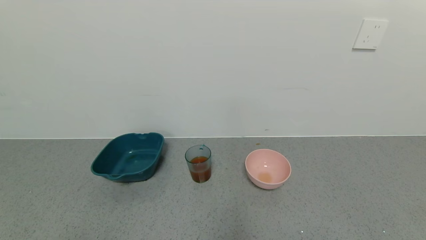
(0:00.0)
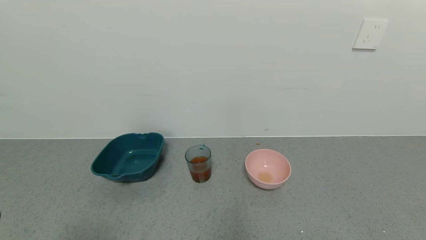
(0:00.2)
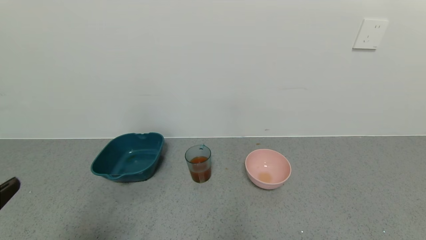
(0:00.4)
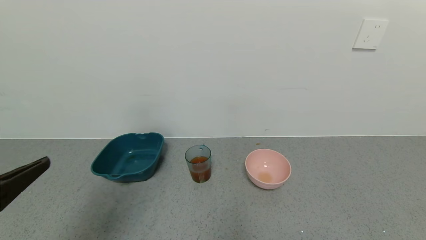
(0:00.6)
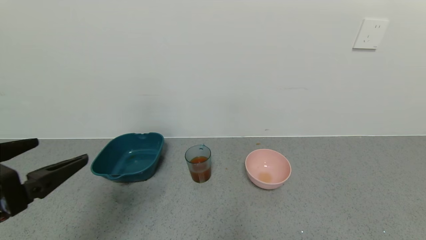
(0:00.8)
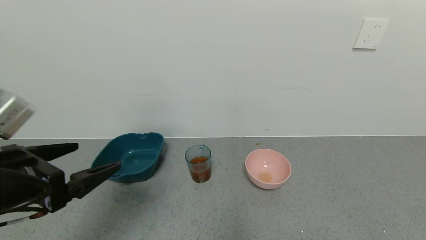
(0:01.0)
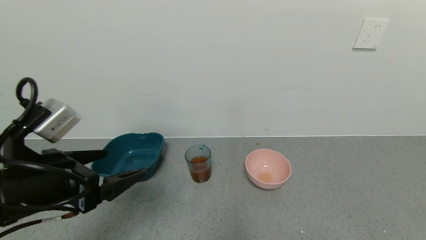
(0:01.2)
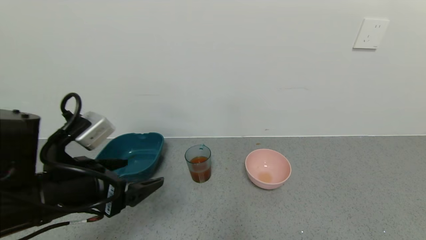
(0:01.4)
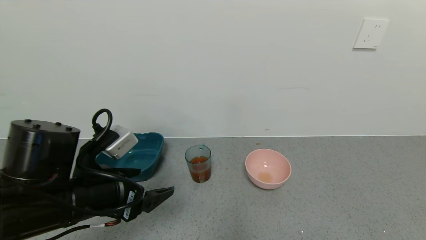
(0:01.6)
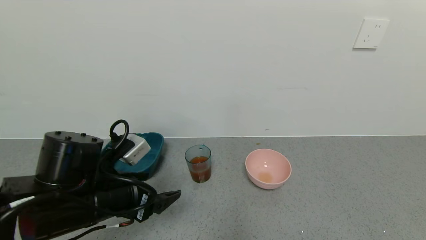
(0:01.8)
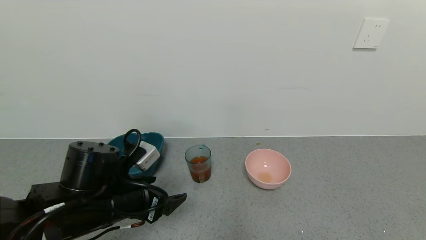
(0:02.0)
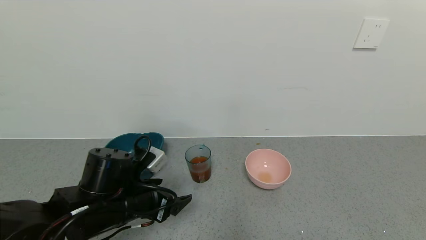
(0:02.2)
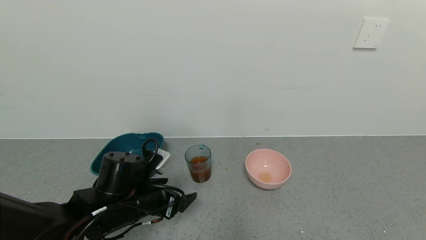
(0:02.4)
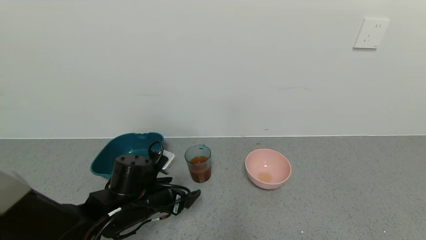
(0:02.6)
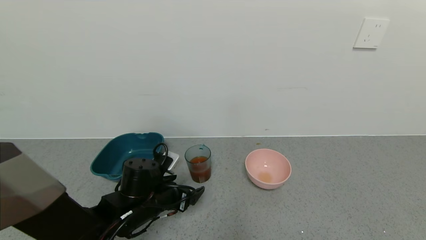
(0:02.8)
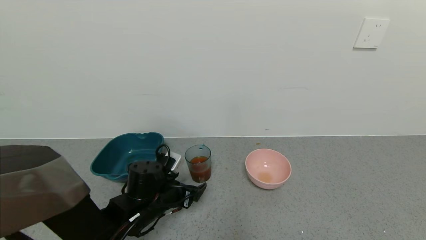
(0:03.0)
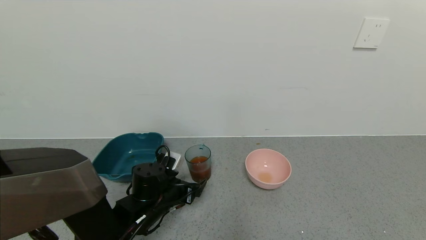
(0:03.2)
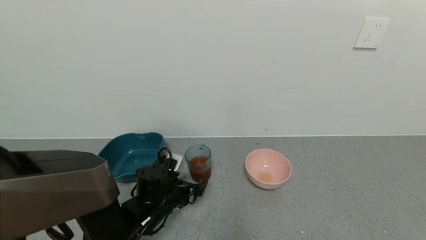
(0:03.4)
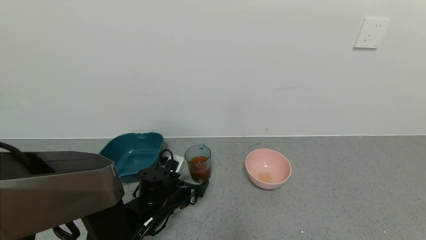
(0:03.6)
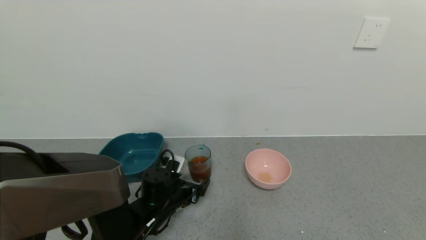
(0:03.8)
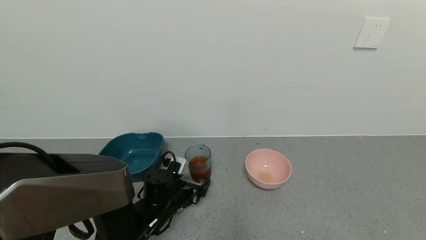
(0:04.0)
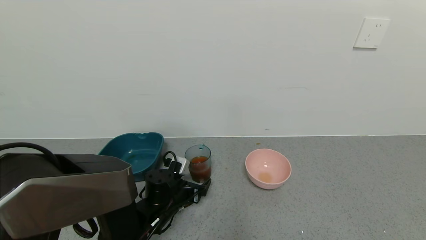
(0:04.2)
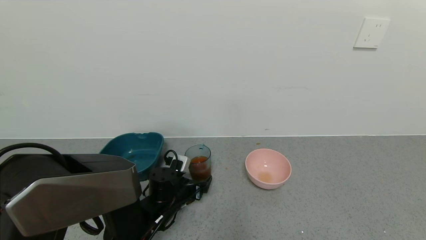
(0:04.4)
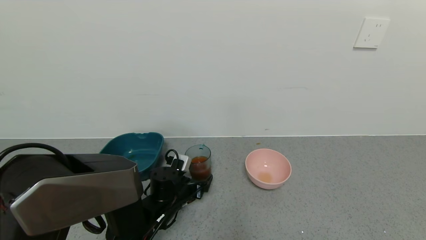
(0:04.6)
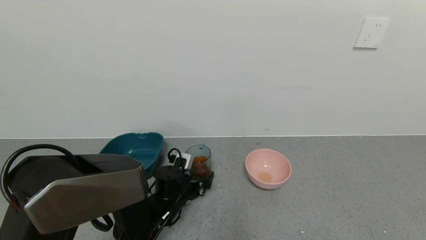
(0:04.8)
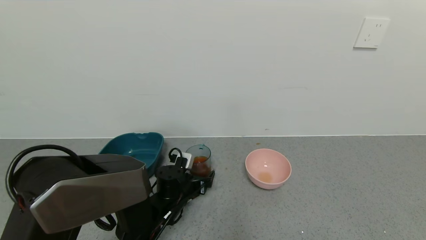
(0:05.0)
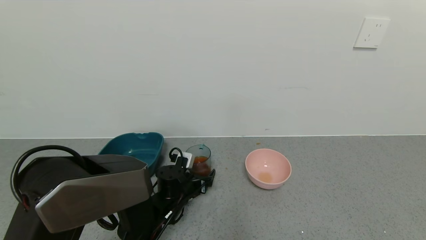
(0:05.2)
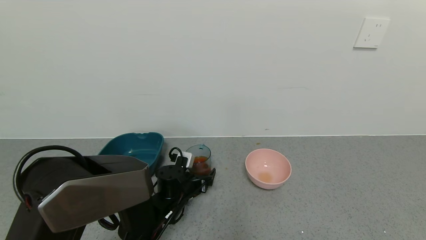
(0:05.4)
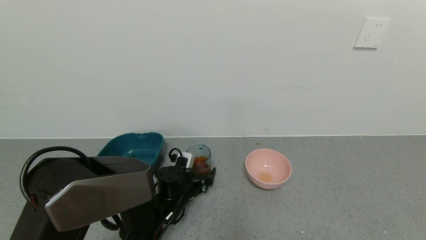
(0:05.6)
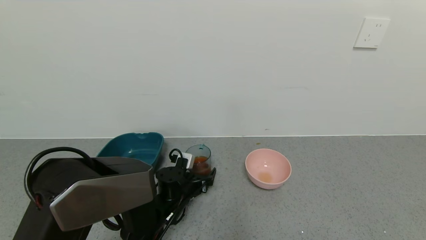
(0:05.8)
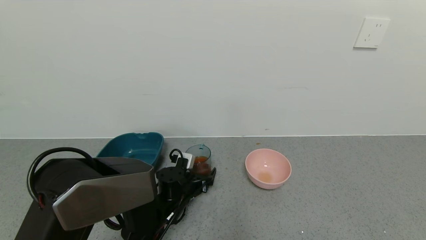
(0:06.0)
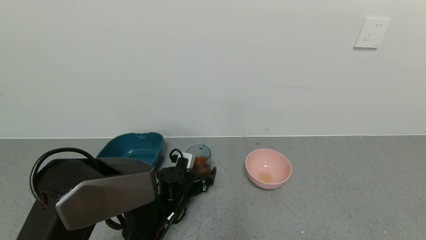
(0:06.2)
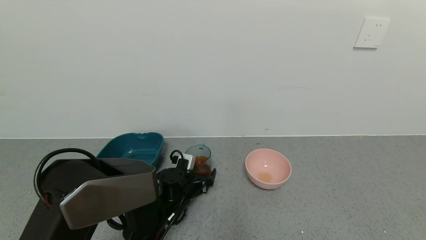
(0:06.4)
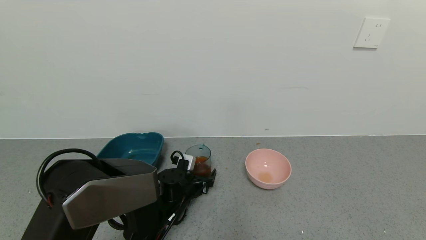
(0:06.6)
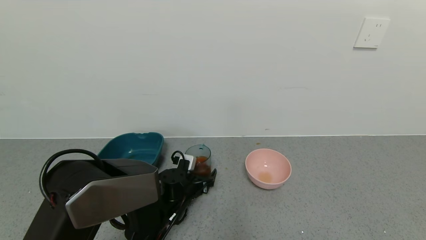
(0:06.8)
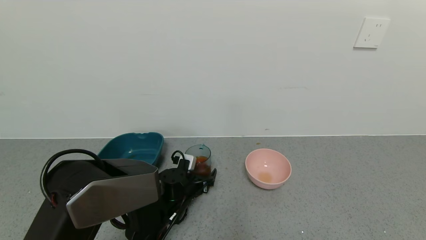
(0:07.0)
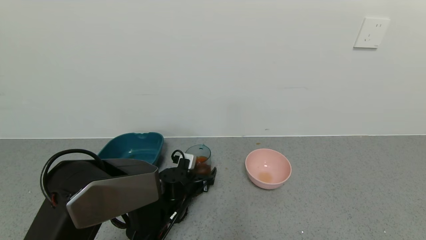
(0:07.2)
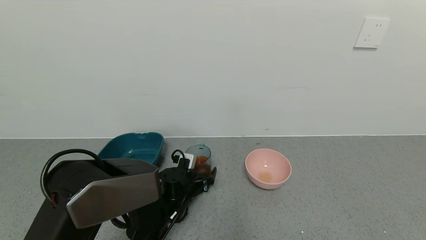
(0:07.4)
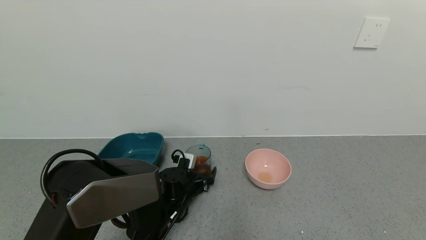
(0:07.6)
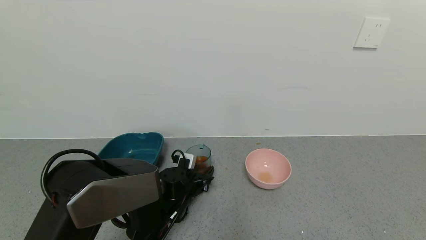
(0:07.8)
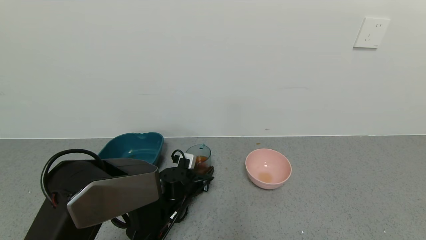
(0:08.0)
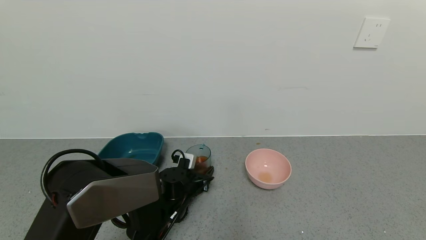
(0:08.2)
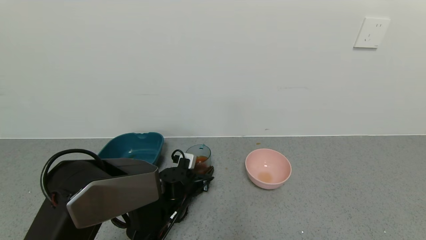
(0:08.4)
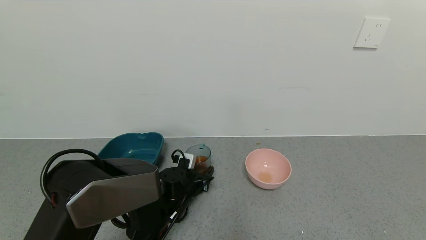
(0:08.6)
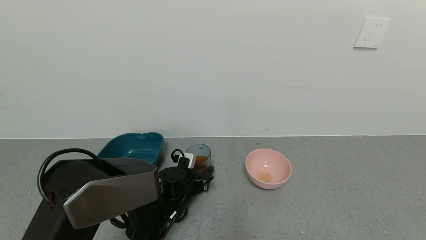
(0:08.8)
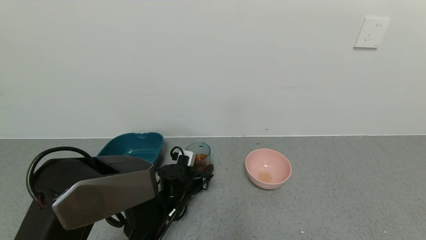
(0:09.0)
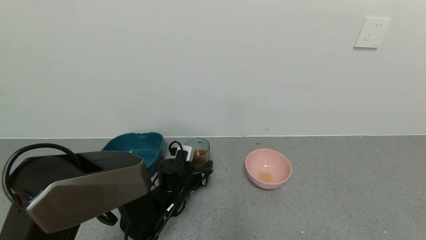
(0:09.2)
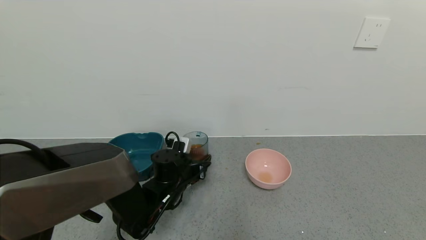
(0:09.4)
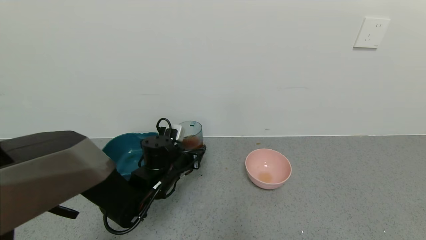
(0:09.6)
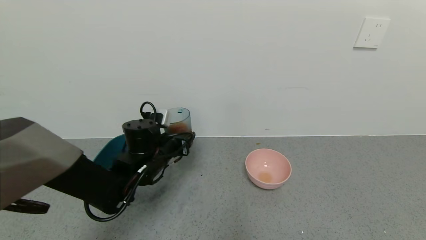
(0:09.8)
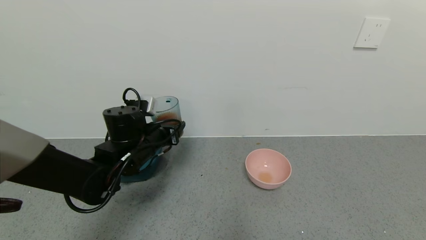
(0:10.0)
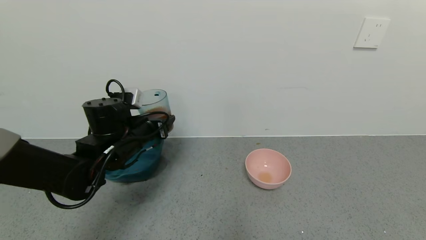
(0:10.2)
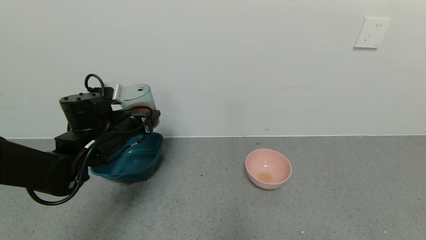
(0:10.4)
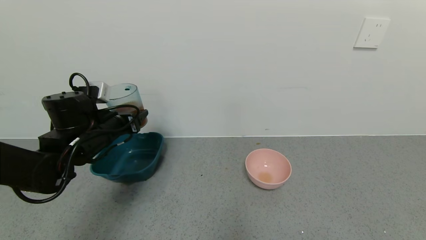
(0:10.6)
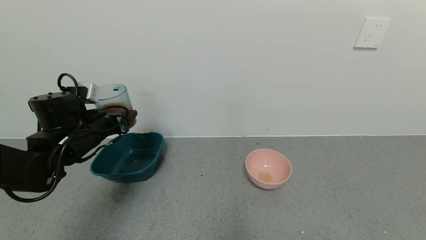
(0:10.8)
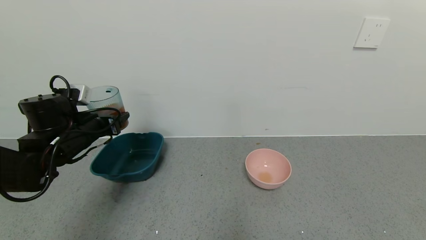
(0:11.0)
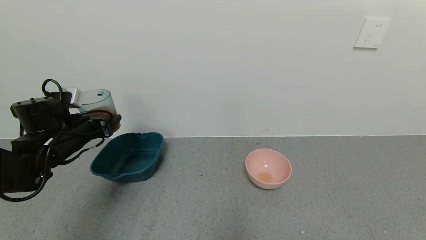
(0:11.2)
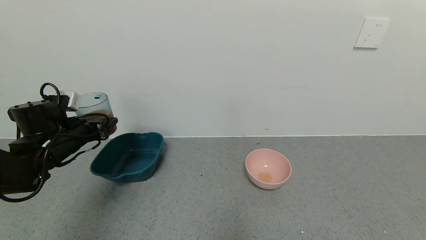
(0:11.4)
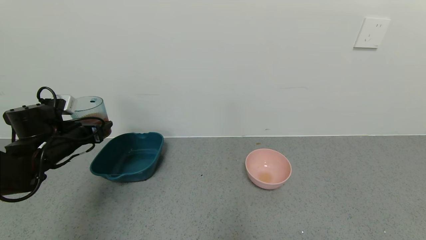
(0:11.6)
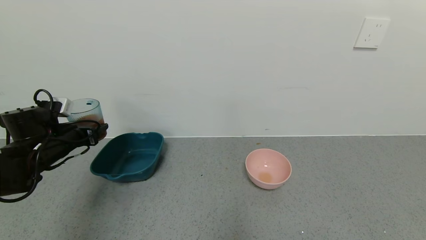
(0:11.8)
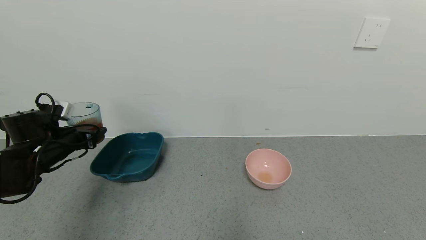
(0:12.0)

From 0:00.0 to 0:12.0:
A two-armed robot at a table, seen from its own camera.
Task of the whole recording: use a gripper to pick up the cup and pour the liquid into a bowl or tray.
Step, from 0:00.0 to 0:08.4: Grasp the glass of black tea with the left gripper.
From 0:00.0 to 0:01.6: The left gripper moves forward and to the right, approximately 20 cm.
From 0:01.6 to 0:03.0: The left gripper shifts some 15 cm downward and forward.
From 0:03.0 to 0:04.4: The left gripper moves roughly 5 cm.
From 0:04.4 to 0:06.0: There are only small adjustments of the grippers.
From 0:06.0 to 0:07.6: The left gripper closes up.
From 0:07.6 to 0:09.0: The left gripper closes.
From 0:09.0 to 0:10.4: The left gripper shifts approximately 20 cm upward and to the left.
From 0:10.4 to 0:12.0: The left gripper moves to the left, roughly 15 cm.

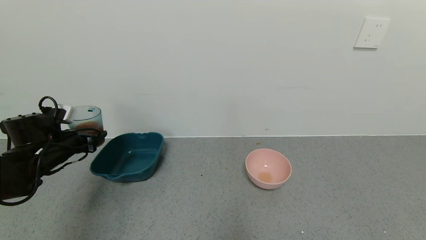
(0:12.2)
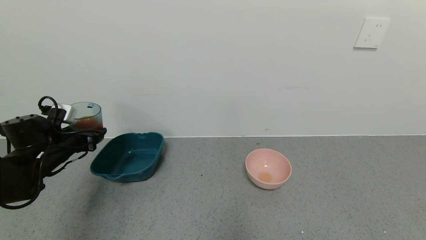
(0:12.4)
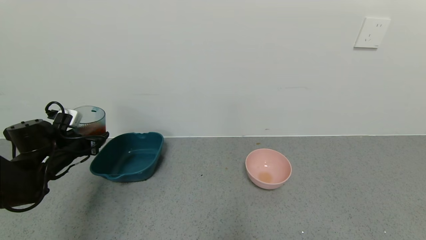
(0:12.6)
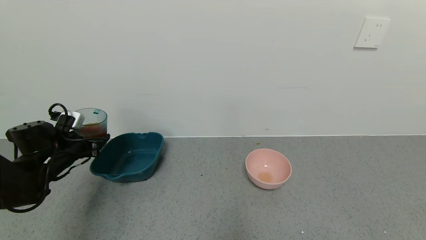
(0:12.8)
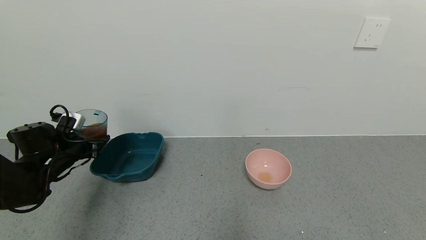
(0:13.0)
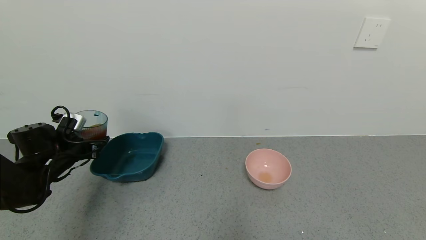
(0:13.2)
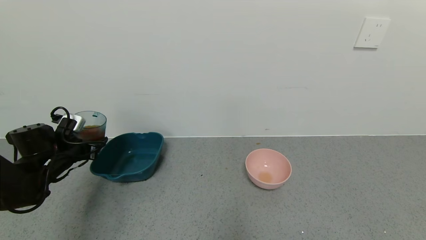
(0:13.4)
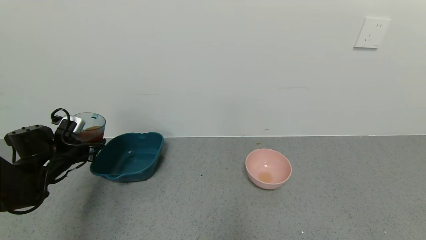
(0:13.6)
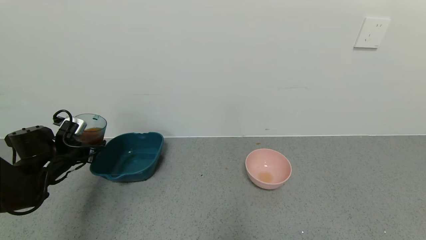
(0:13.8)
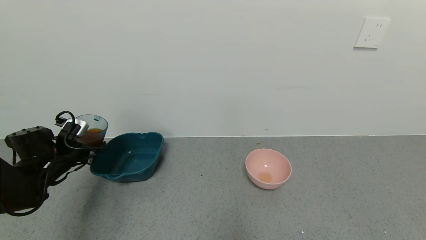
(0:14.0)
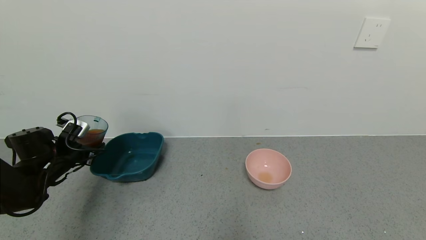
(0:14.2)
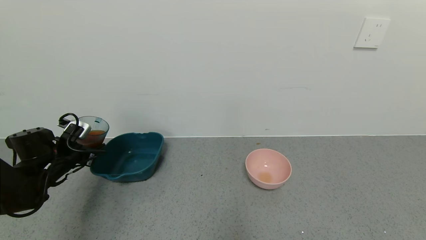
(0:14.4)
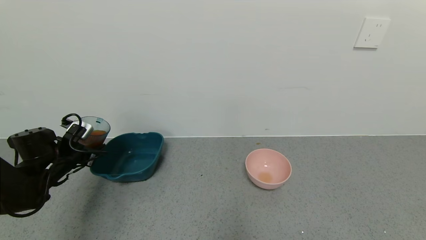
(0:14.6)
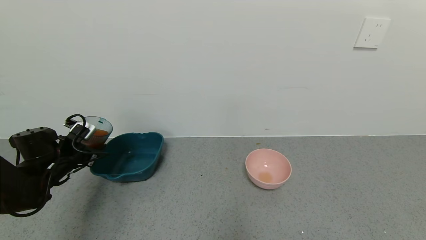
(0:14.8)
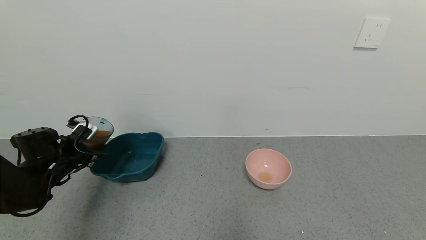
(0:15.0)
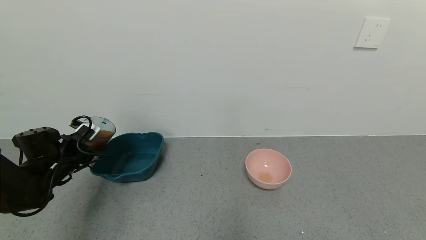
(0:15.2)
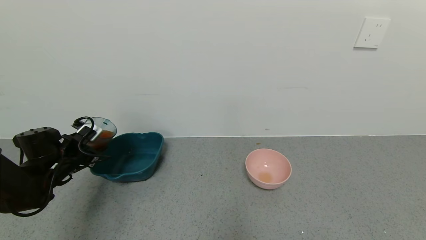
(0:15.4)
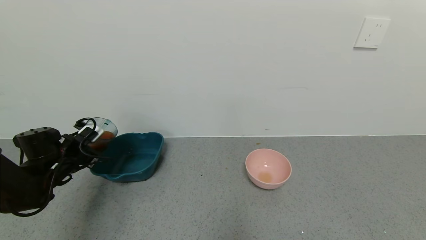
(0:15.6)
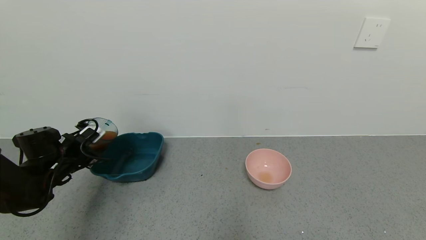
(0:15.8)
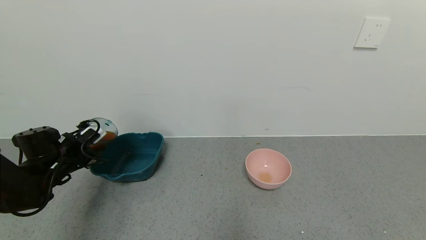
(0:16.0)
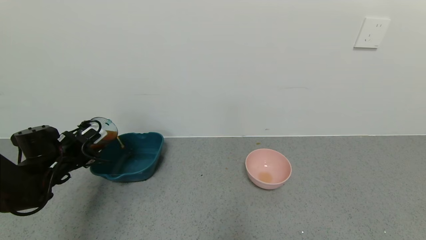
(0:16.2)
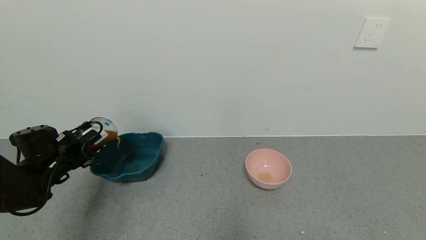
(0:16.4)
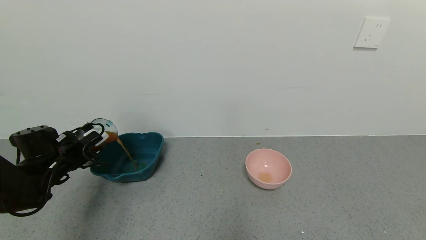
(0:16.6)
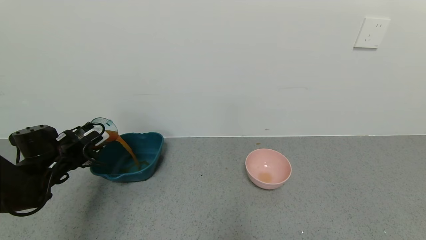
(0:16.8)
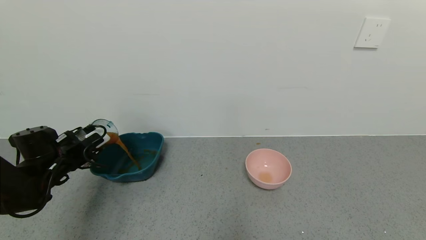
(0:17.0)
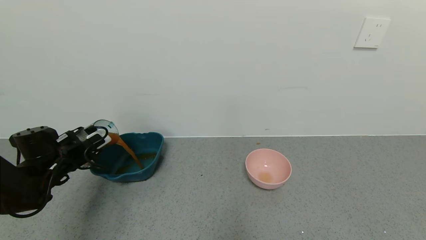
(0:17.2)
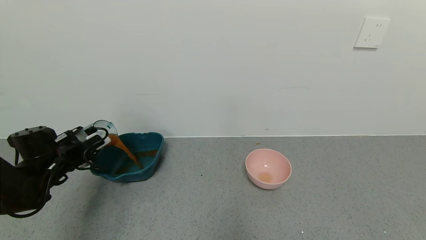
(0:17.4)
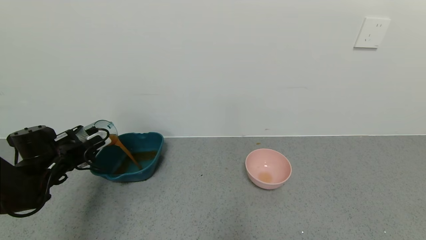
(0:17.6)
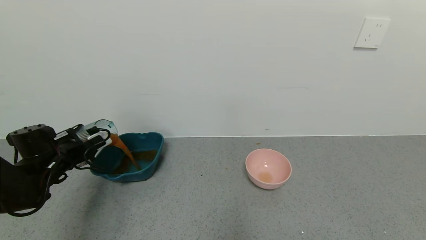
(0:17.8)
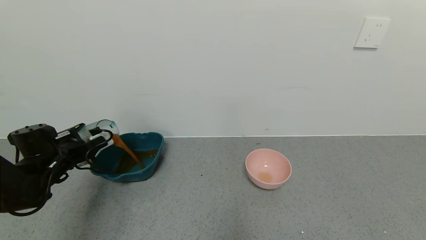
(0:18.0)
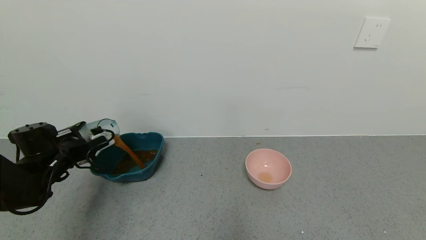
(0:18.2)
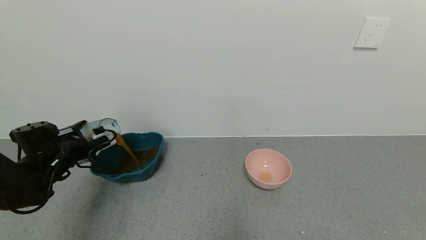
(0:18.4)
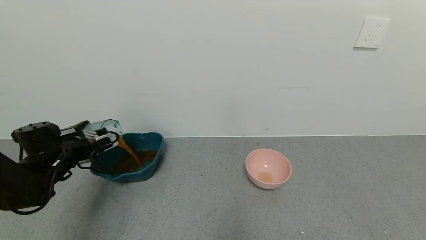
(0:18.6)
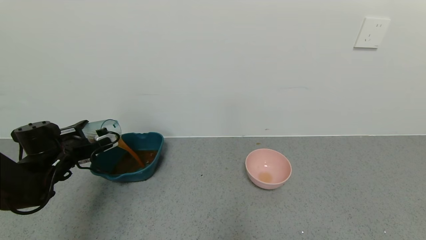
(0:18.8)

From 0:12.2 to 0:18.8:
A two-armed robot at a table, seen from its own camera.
Task of the whole recording: use a gripper to pick up the cup and pour the liquid into a bowl or tray.
From 0:12.2 to 0:13.8: There are only small adjustments of the grippers.
From 0:13.8 to 0:15.4: The grippers stay close to where they were, moving slightly.
From 0:17.2 to 0:18.8: The grippers stay close to where they were, moving slightly.
